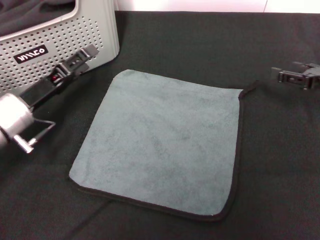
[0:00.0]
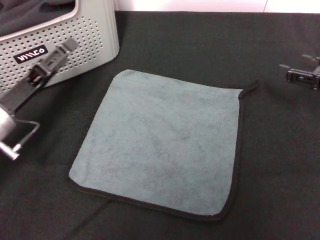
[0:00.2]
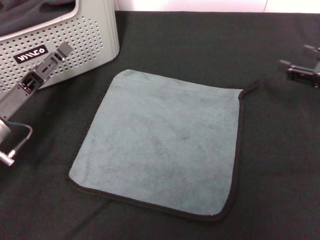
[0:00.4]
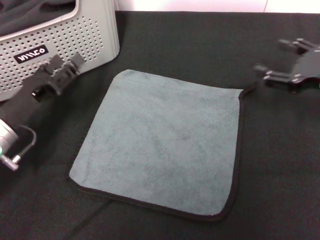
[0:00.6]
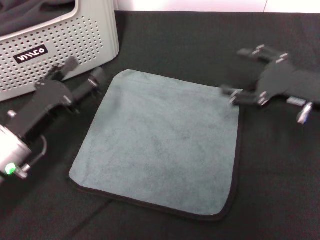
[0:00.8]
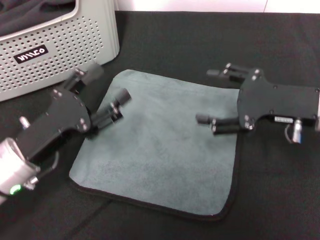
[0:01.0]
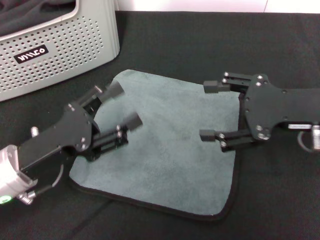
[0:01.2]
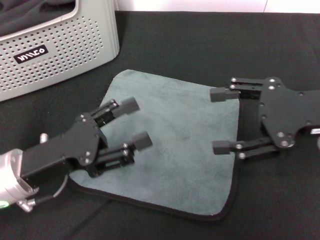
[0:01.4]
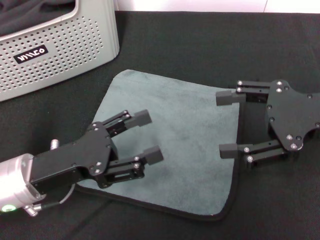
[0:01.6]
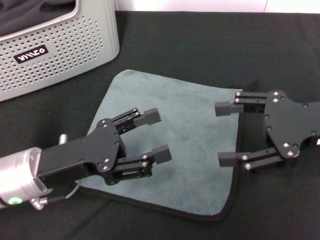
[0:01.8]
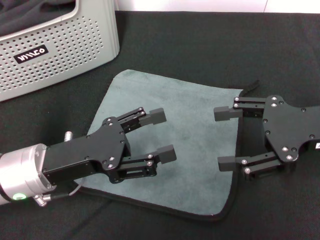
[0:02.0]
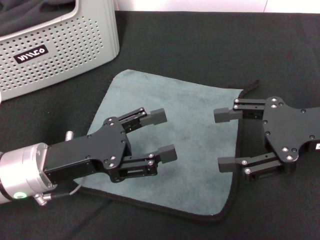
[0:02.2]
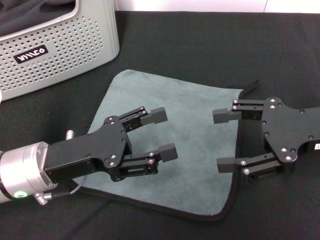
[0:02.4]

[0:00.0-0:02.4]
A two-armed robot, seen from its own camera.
Task of the whole recording: pick up the towel from the storage box and lay it flat on the black tablecloth.
0:00.0 to 0:01.2: The right gripper is displaced to the left, upward and backward by some 10 cm. Meanwhile the left gripper is displaced backward by approximately 10 cm, and opens up.
0:01.2 to 0:02.4: There are only small adjustments of the grippers.
